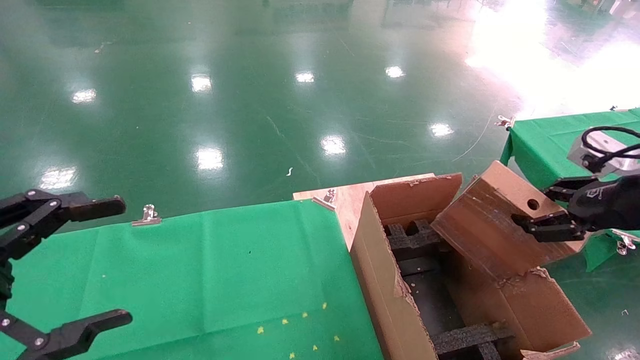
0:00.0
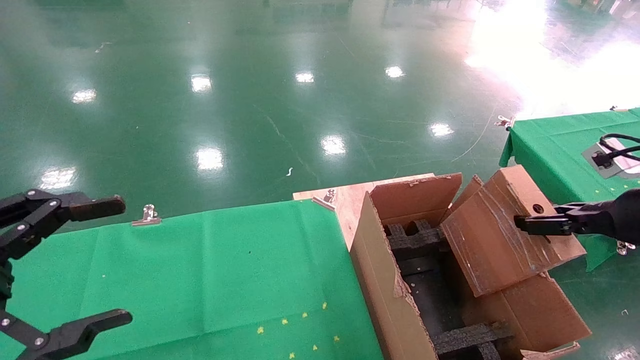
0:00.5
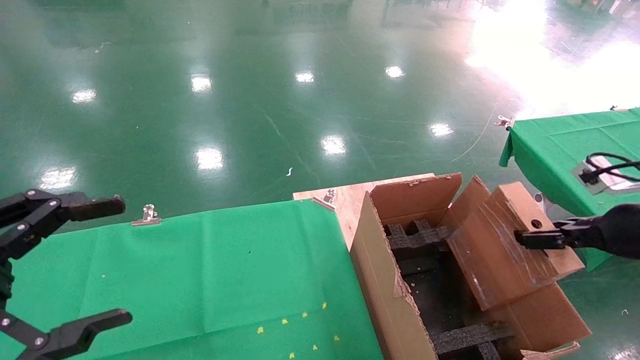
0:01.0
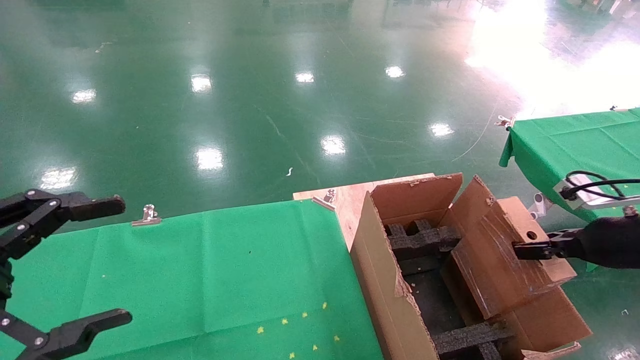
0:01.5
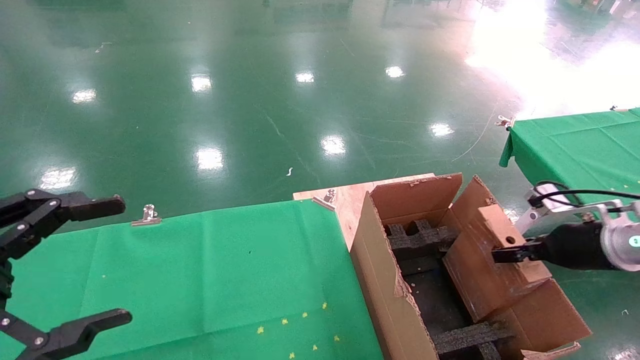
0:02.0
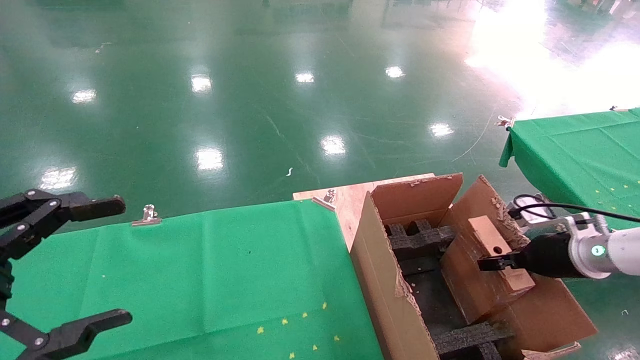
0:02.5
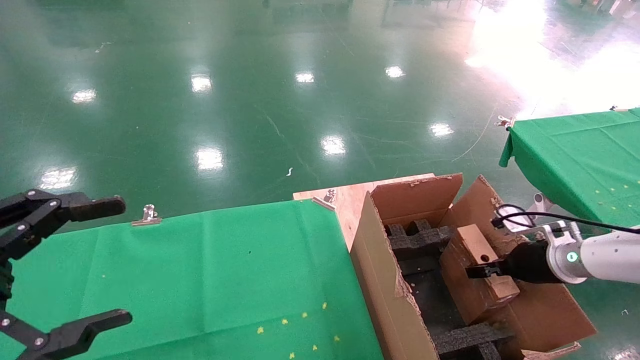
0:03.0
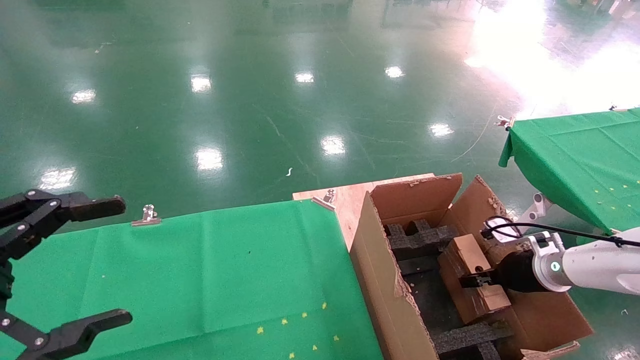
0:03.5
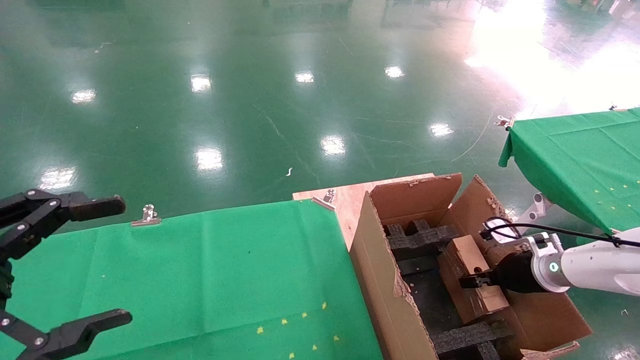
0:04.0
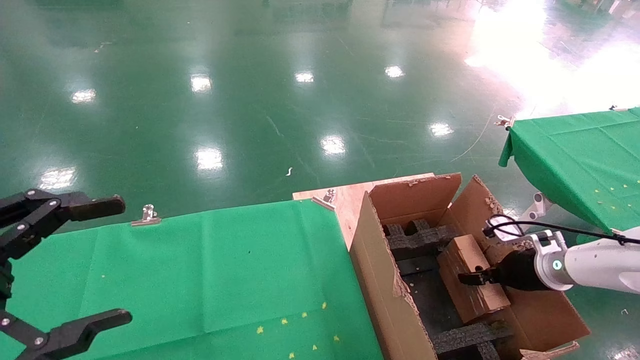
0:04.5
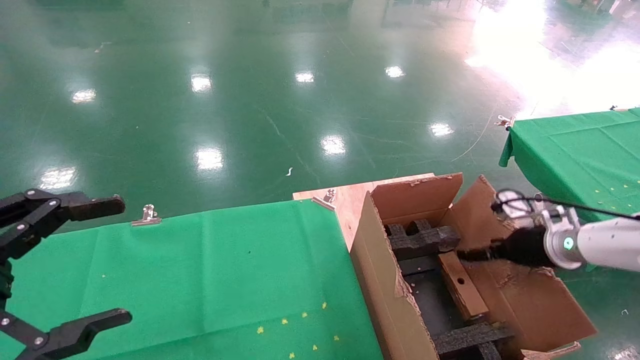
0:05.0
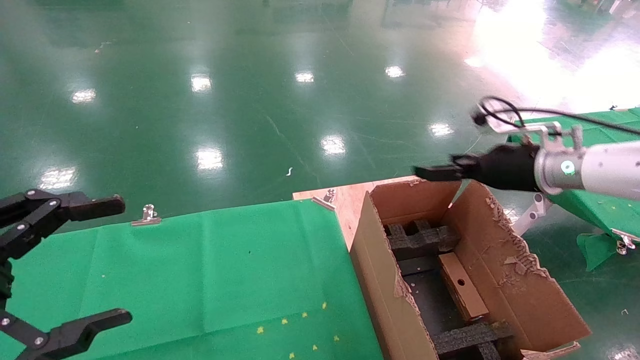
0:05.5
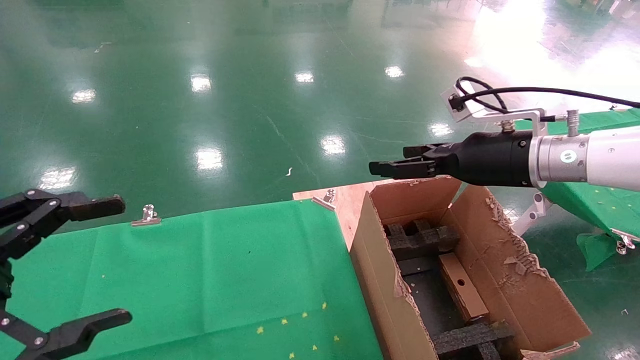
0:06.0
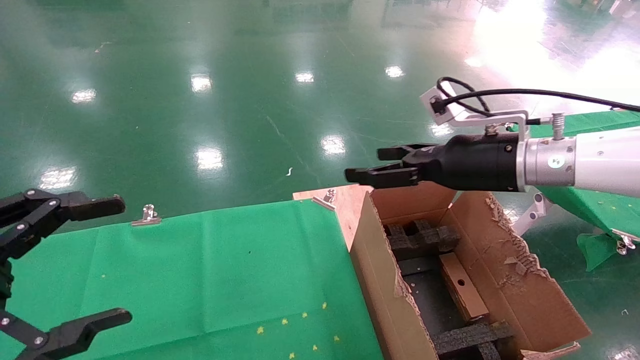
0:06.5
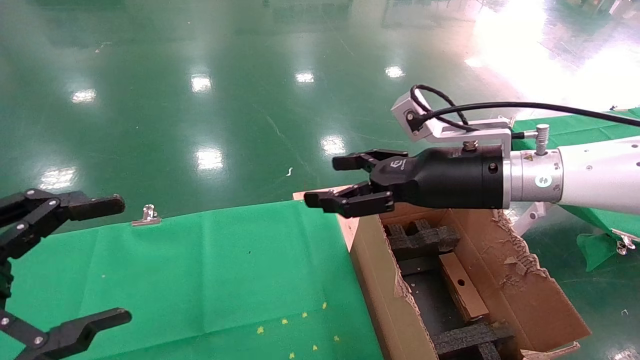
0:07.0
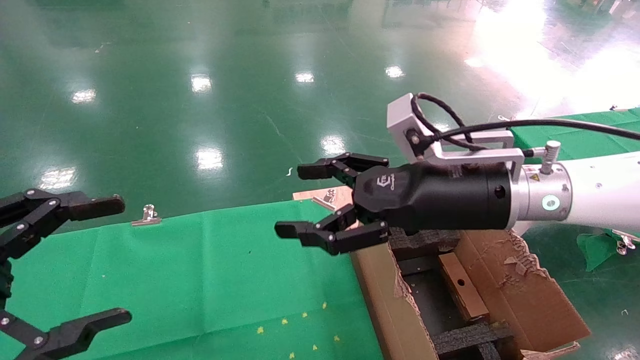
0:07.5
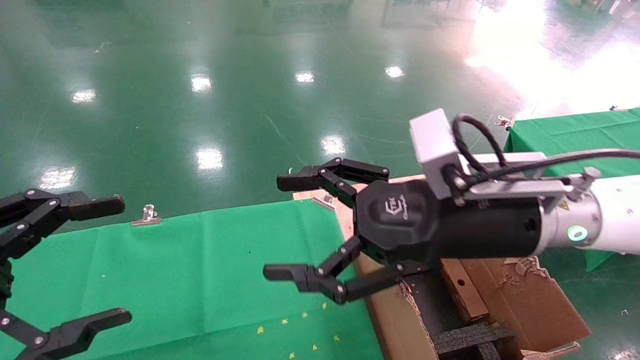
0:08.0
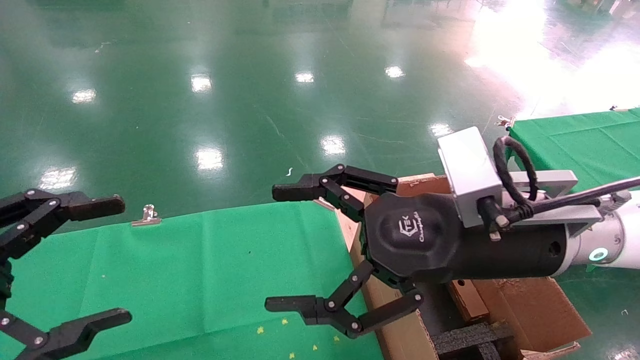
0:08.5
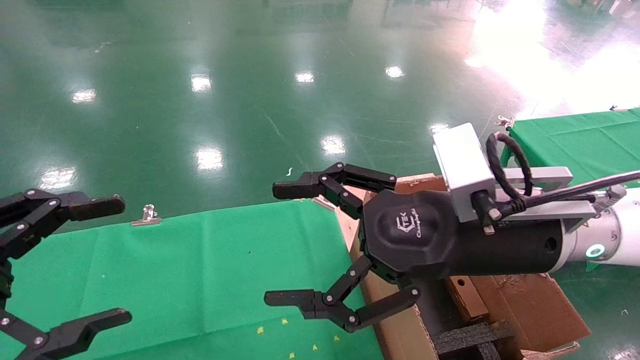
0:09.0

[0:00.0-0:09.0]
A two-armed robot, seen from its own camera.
Task of the whole recording: using a robotic arm to pick up a cardboard box and palace it the carton.
Step, 0:00.0 to 0:05.0: Place the mouse and the power cord paper box into the container.
0:00.0 to 0:02.0: The right gripper travels downward and forward by about 15 cm.
0:02.0 to 0:04.5: The right gripper is displaced downward and forward by approximately 10 cm.
0:04.5 to 0:07.0: The right gripper shifts approximately 30 cm to the left and upward, and opens.
0:07.0 to 0:09.0: The right gripper moves backward, approximately 10 cm.

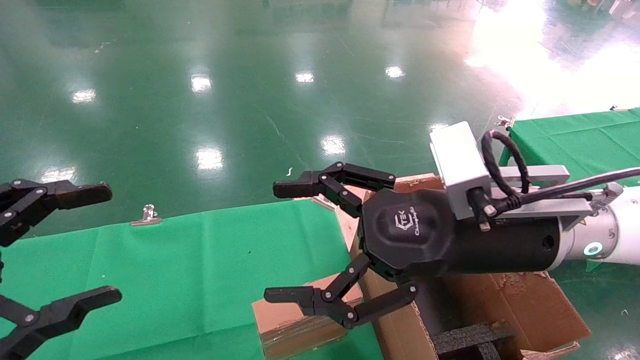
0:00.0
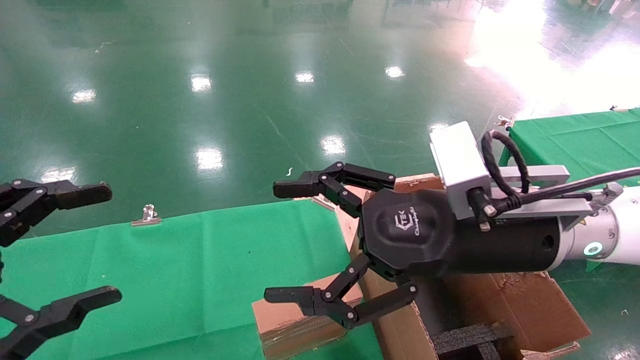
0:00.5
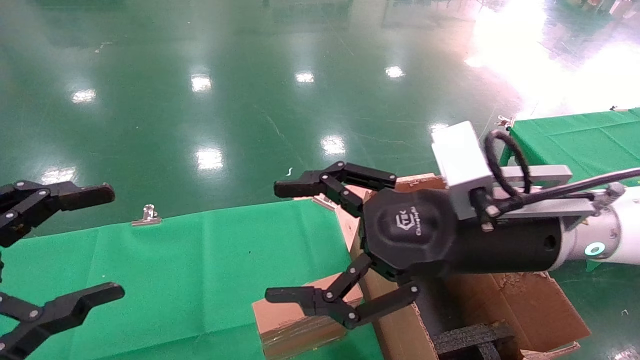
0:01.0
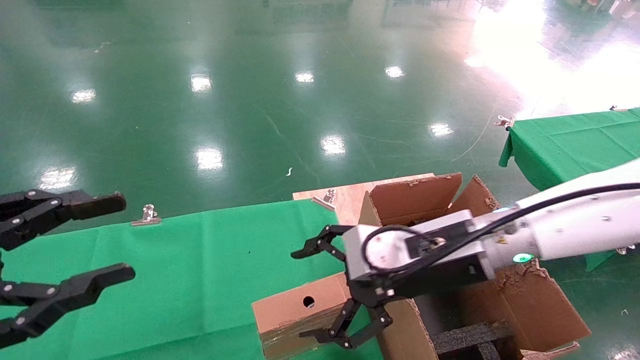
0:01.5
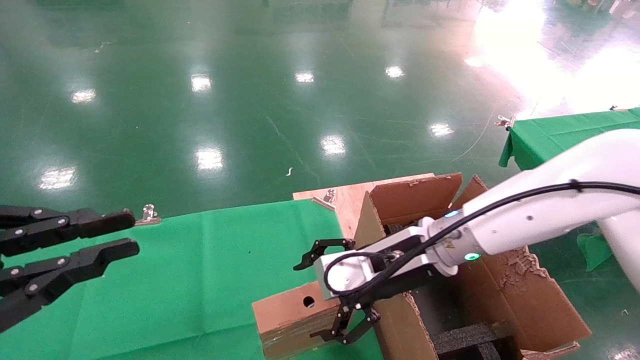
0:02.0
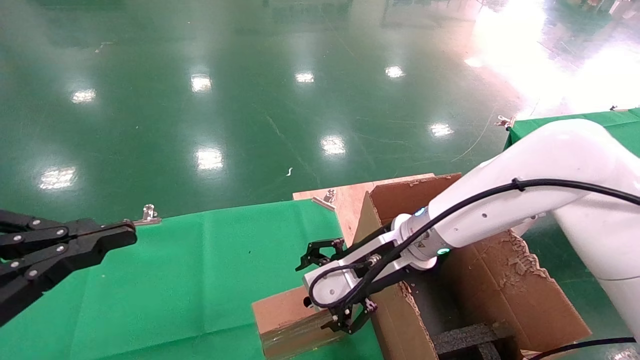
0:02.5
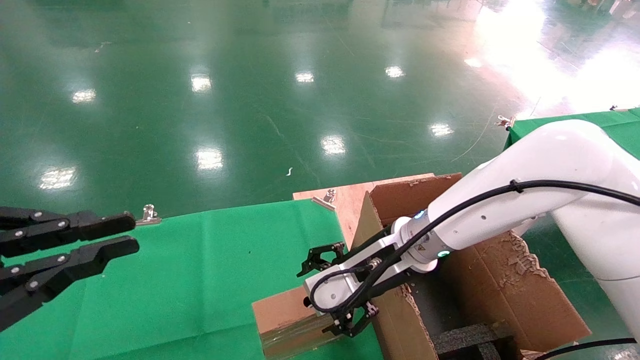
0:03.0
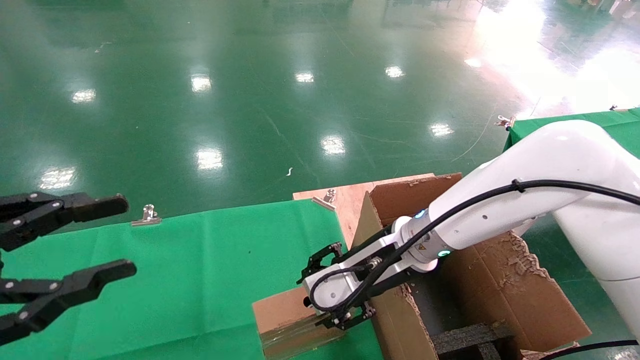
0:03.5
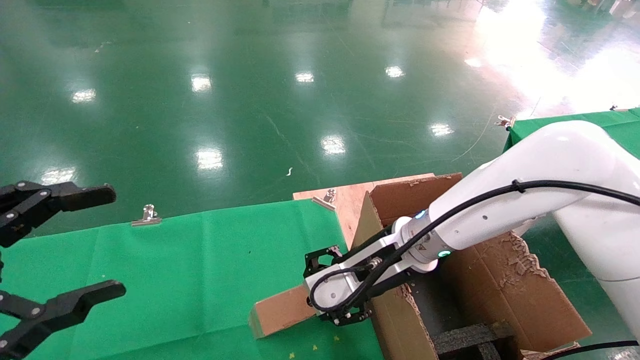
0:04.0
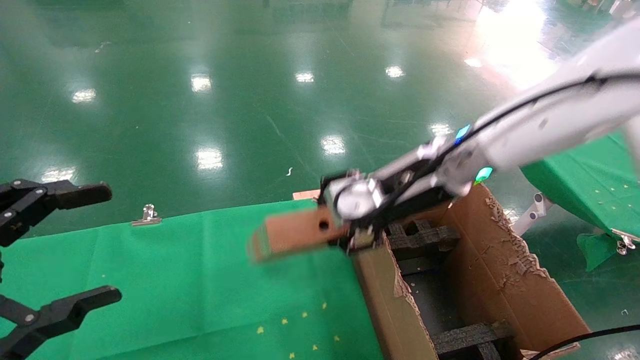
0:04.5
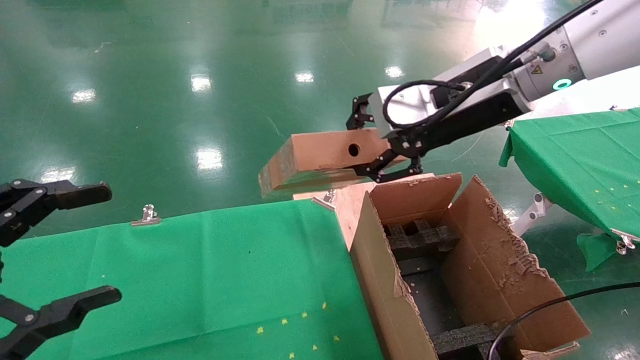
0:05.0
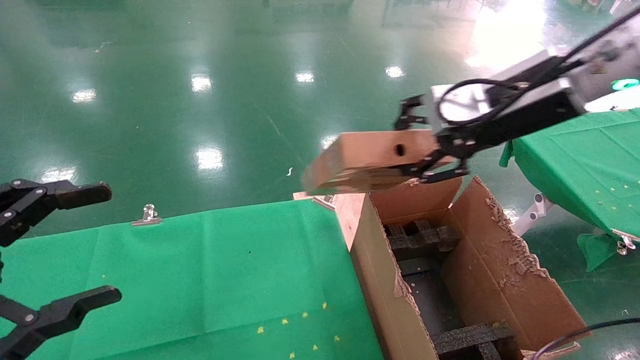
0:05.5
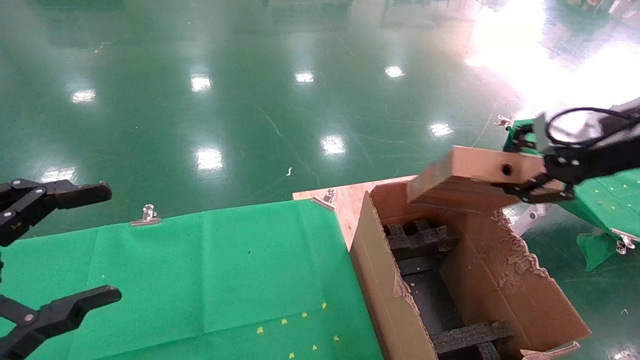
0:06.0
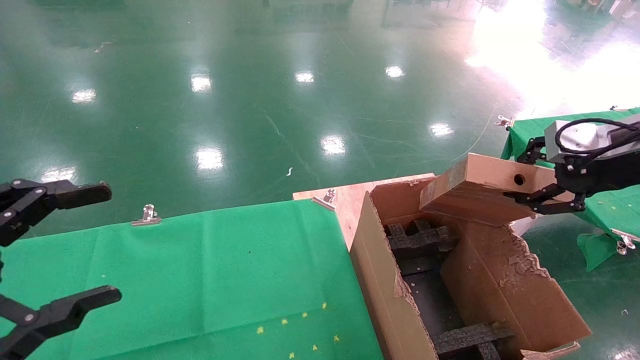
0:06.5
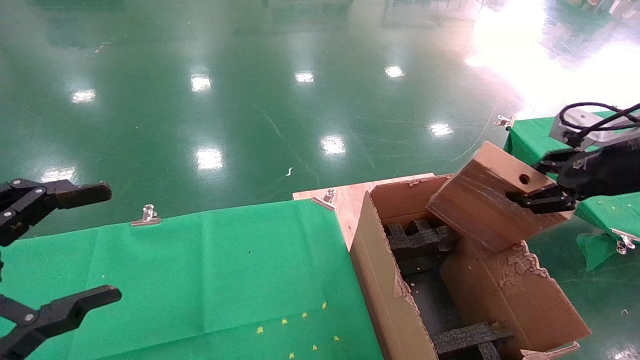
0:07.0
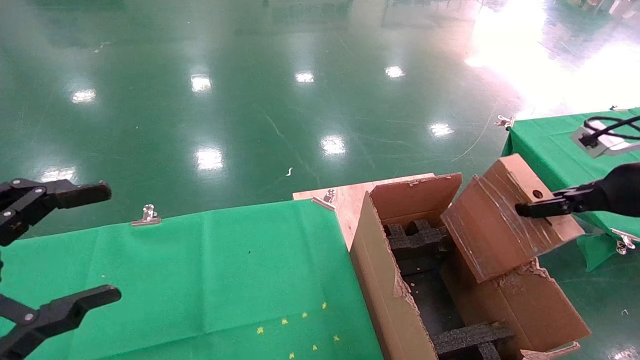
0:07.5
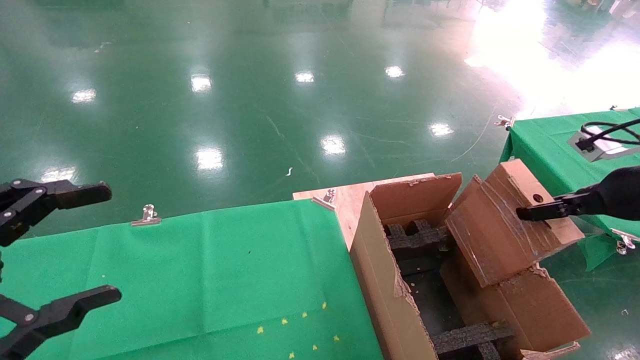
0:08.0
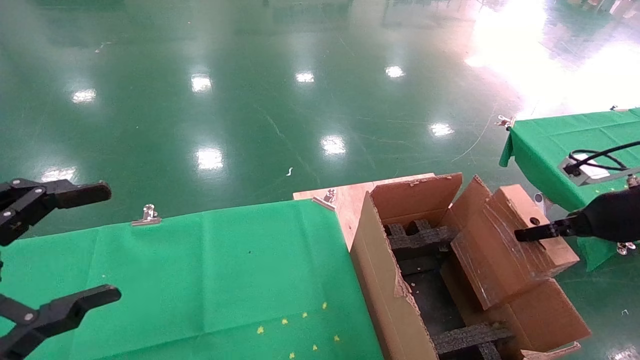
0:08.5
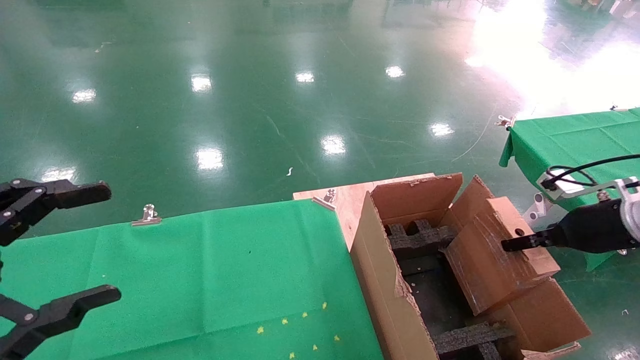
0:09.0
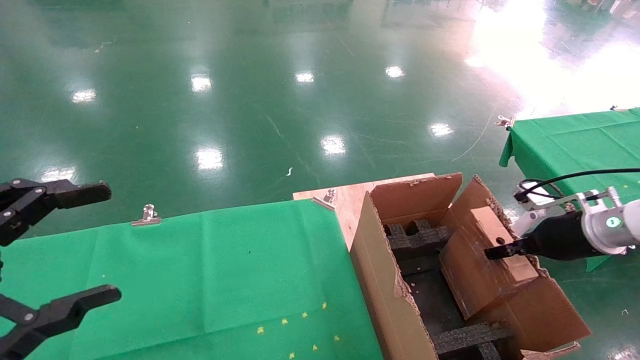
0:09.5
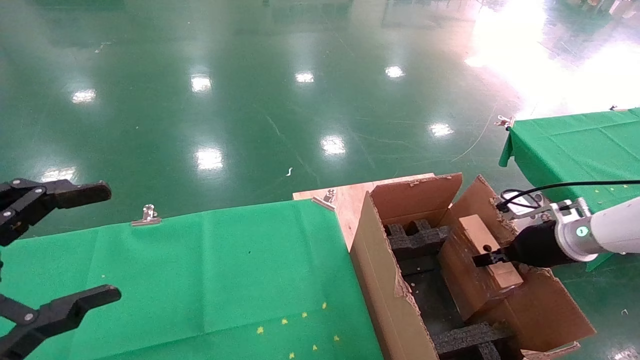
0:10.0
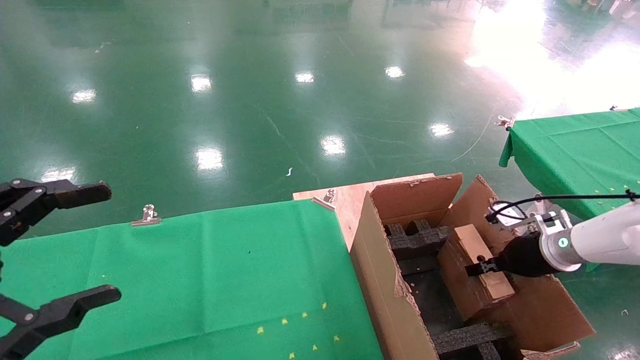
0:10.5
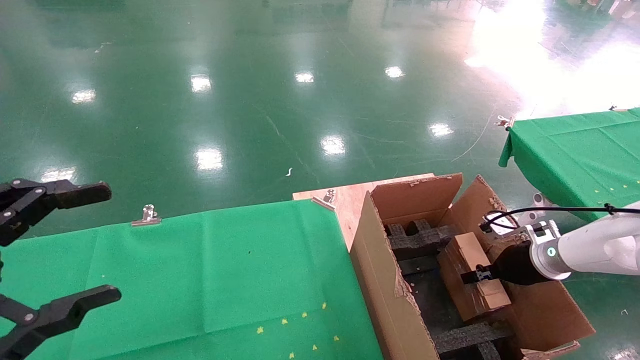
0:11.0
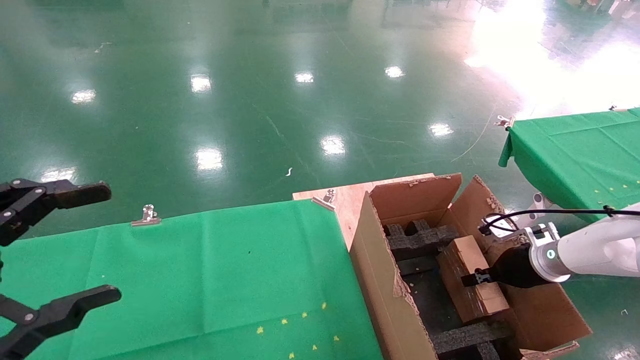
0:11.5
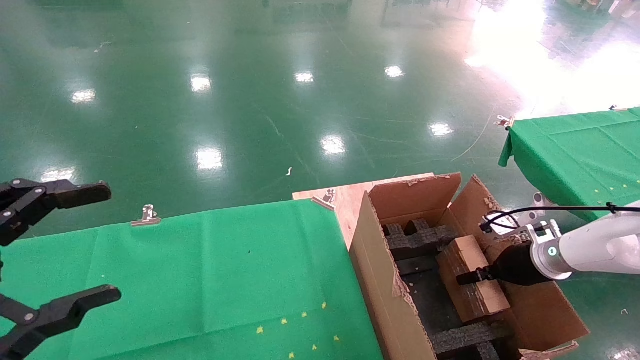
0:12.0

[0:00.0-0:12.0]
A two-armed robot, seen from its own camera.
Task of the whole recording: using a robotic arm to pick up a cardboard box and palace it the carton.
Step, 0:01.5 to 0:03.5: Pick up the mouse and the power cord paper box.
0:00.0 to 0:02.0: The right gripper travels forward and downward by about 10 cm. Meanwhile the left gripper closes up.
0:02.0 to 0:04.0: The left gripper opens up. The right gripper closes its fingers.
0:04.0 to 0:06.0: The right gripper goes approximately 30 cm to the right and upward.
0:06.0 to 0:08.0: The right gripper heads downward and to the right, covering some 10 cm.
0:08.0 to 0:10.0: The right gripper is displaced downward and forward by some 15 cm.
0:10.0 to 0:12.0: The right gripper moves roughly 5 cm.
